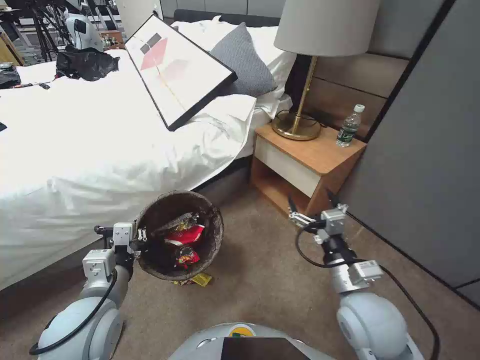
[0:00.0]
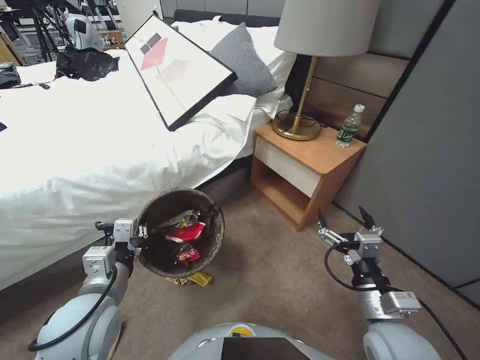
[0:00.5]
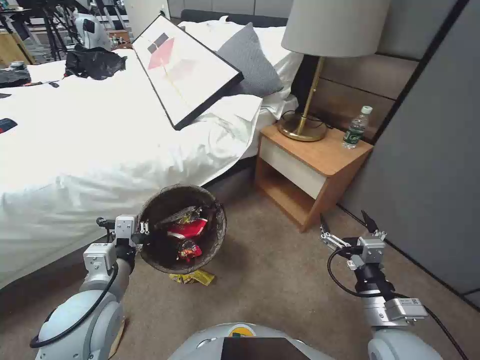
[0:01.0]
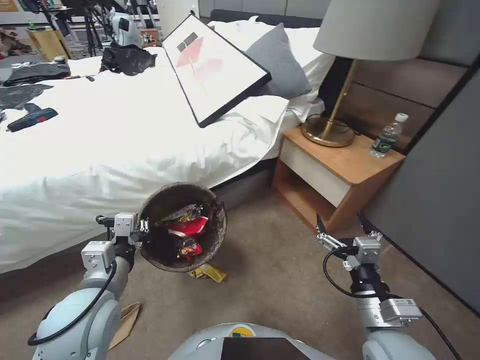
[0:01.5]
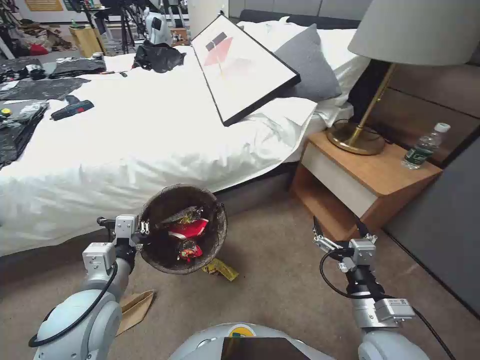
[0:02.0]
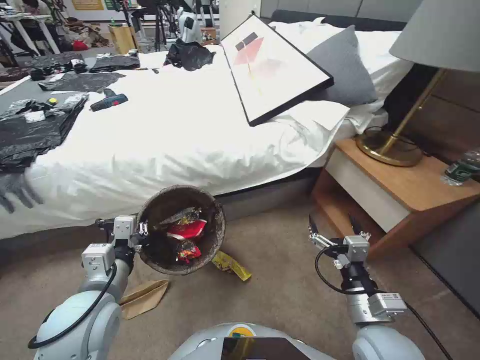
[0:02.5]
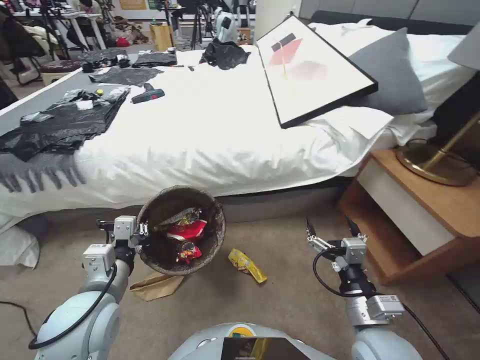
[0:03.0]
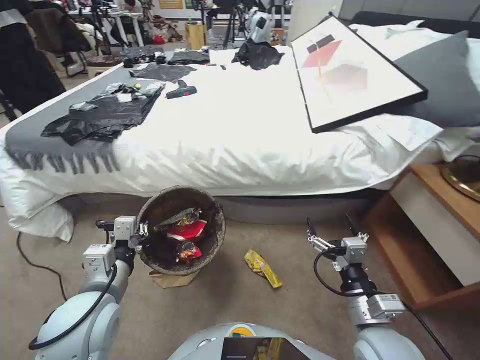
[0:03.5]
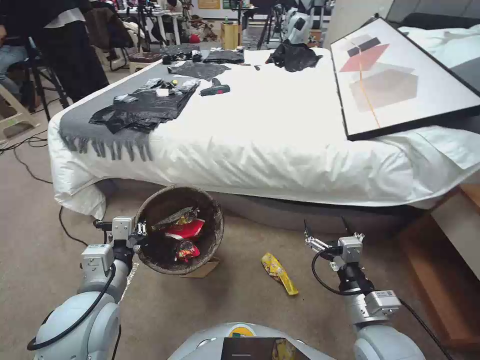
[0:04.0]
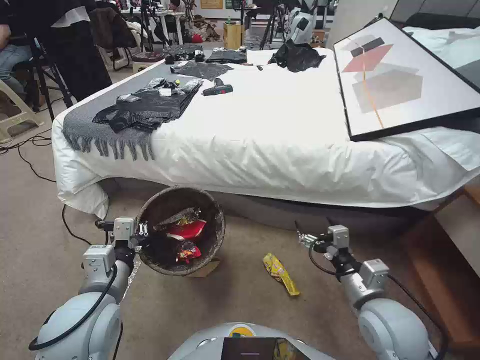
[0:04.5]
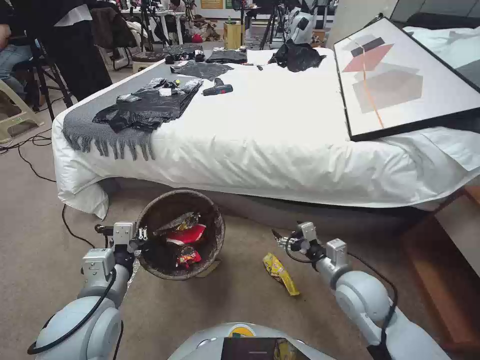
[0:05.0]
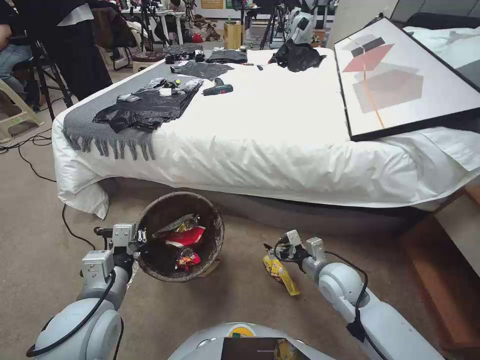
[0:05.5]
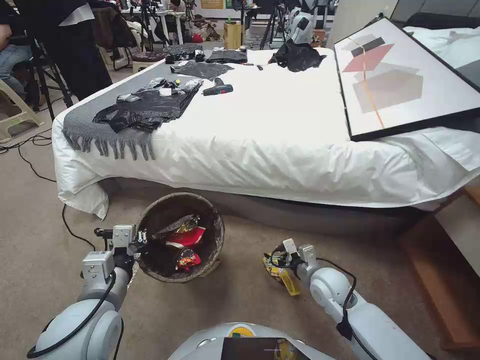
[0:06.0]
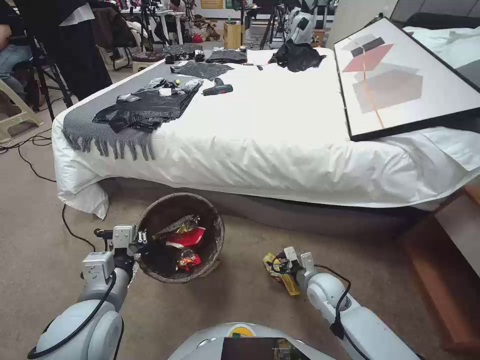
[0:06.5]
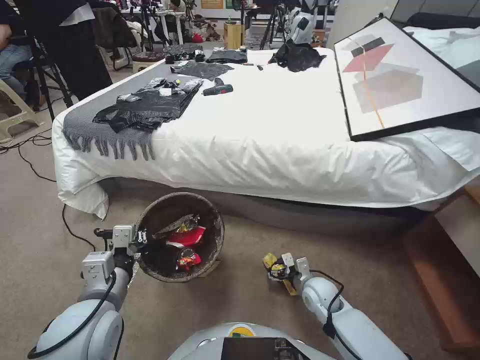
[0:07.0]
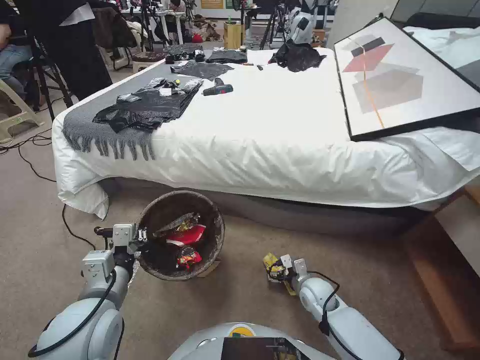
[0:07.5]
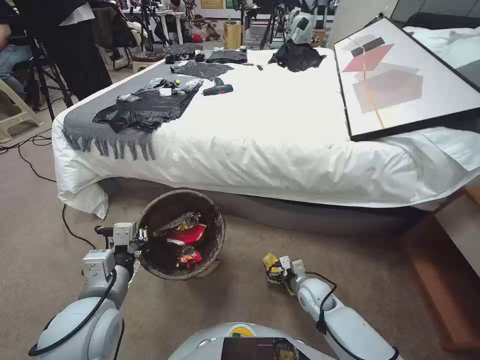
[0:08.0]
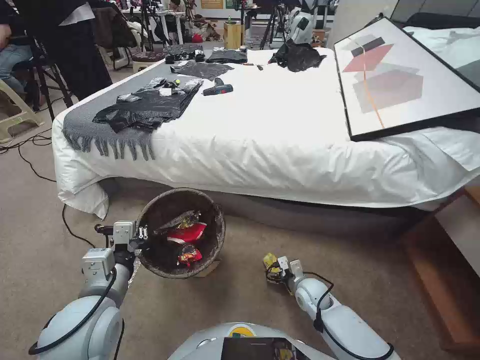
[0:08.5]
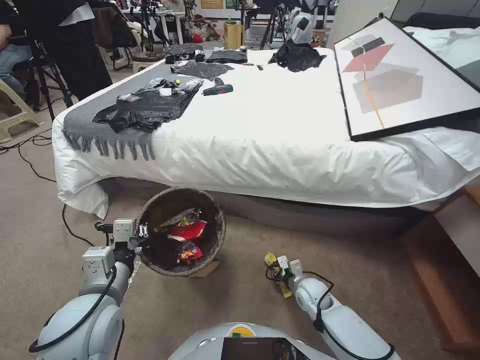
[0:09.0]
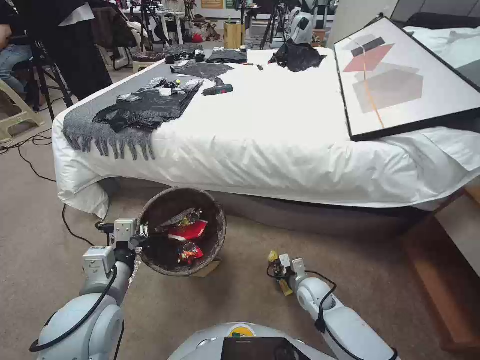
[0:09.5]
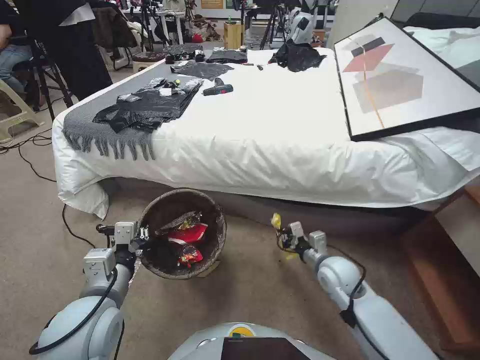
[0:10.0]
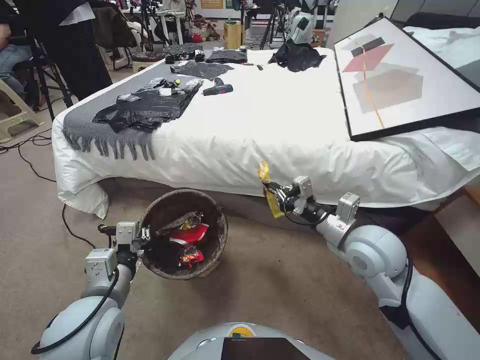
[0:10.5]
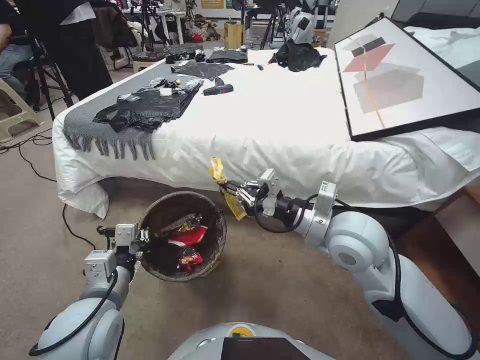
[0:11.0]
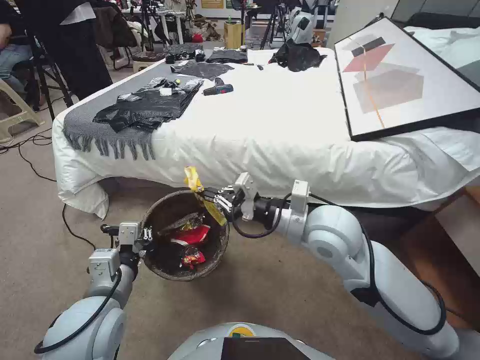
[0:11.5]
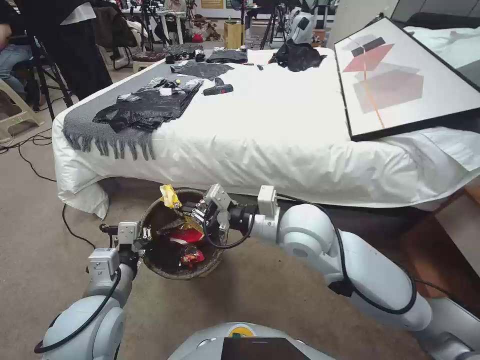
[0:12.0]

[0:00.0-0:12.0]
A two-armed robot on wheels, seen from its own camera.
Task of the whole recording: Pick up the trash bin, then pick up the garbage from the floor and place it into the trash bin.
0:00.0 to 0:02.0: The right gripper goes some 5 cm backward.
0:04.0 to 0:06.0: The right gripper heads forward and downward, covering roughly 15 cm.
0:06.0 to 0:08.0: The right gripper travels downward by roughly 10 cm.
0:08.0 to 0:10.0: The right gripper goes approximately 10 cm upward, and closes its fingers.
0:10.0 to 0:12.0: The right gripper shifts about 30 cm upward and to the left.

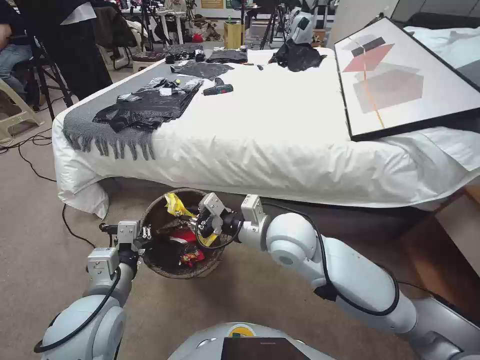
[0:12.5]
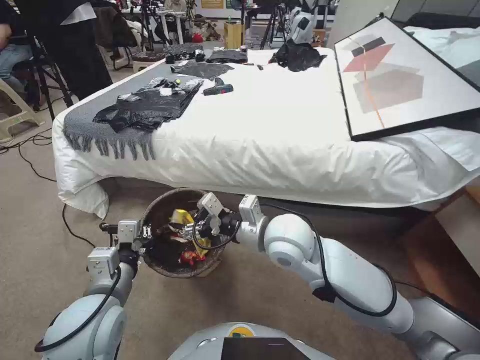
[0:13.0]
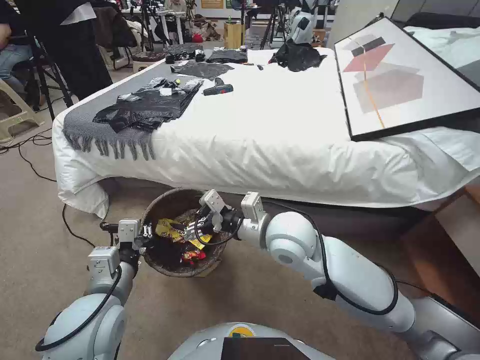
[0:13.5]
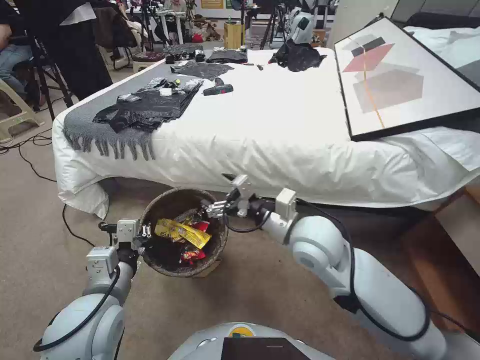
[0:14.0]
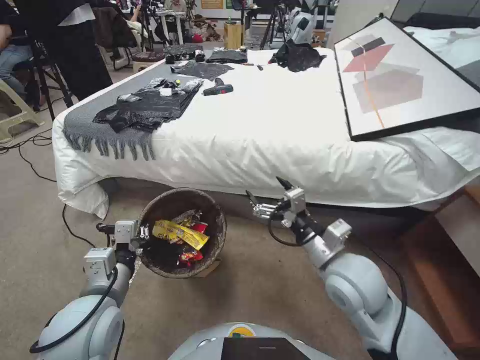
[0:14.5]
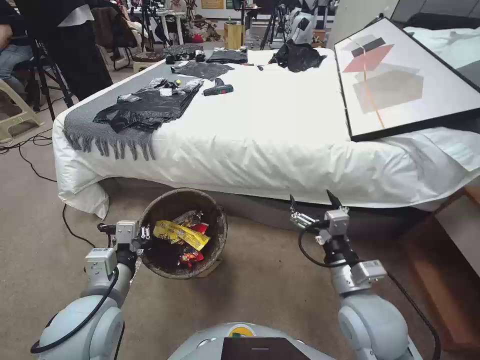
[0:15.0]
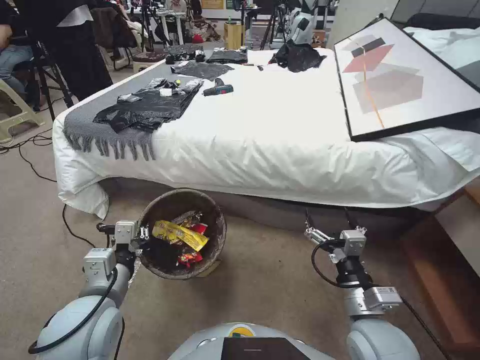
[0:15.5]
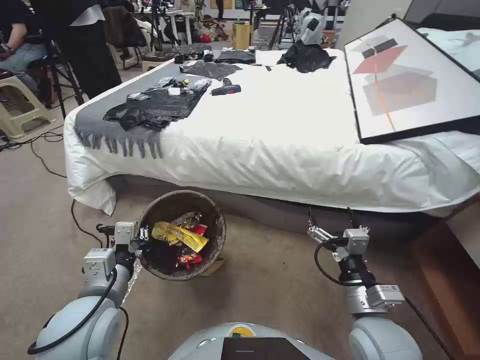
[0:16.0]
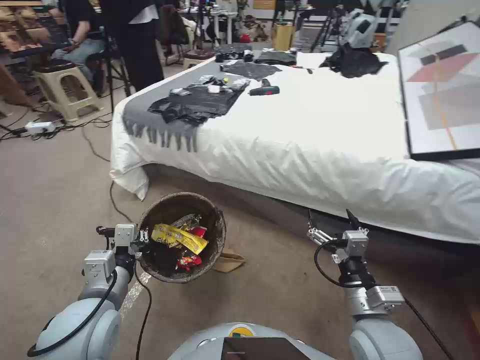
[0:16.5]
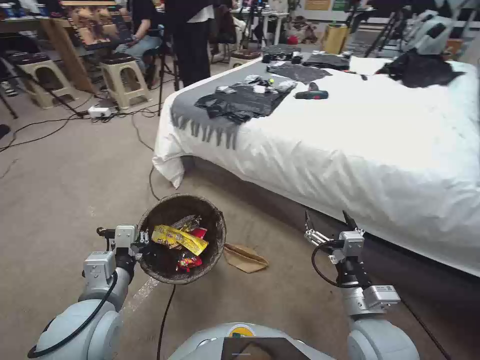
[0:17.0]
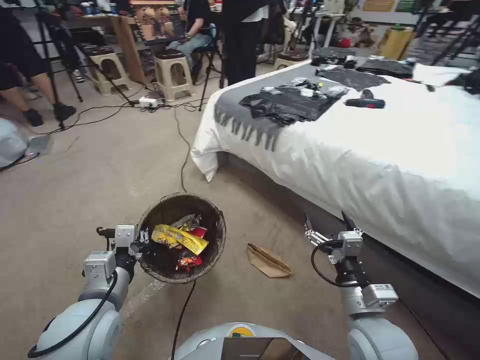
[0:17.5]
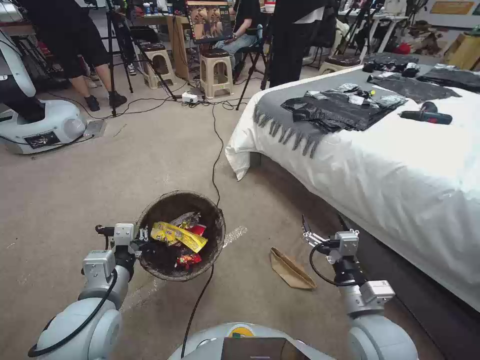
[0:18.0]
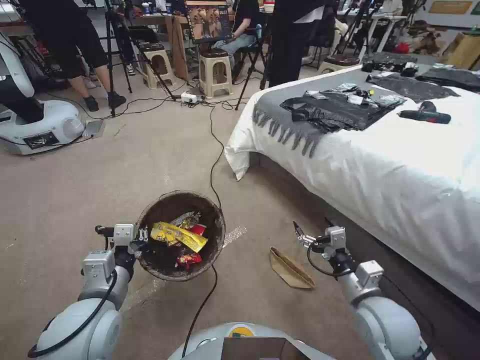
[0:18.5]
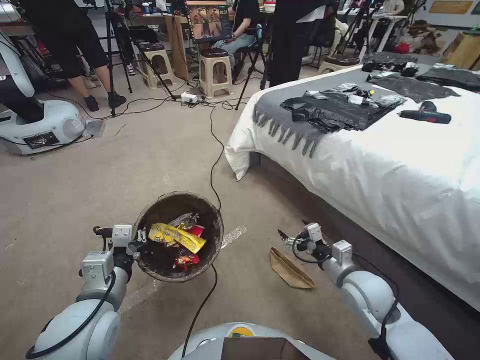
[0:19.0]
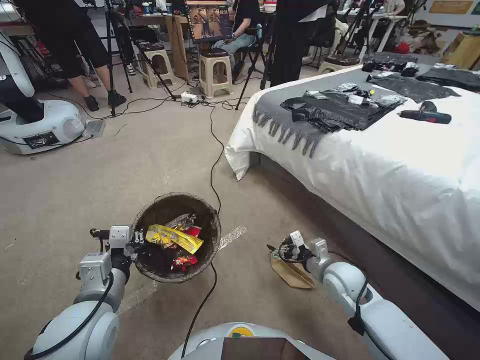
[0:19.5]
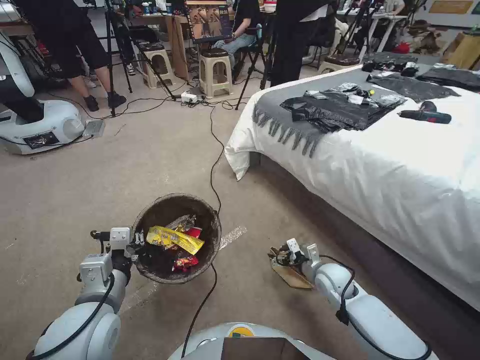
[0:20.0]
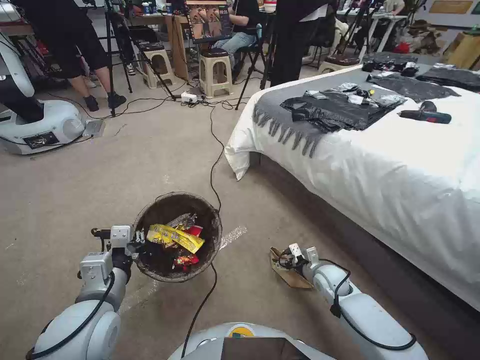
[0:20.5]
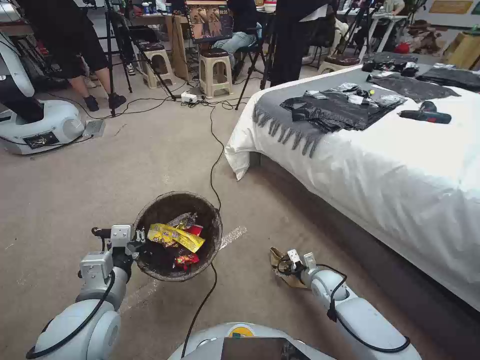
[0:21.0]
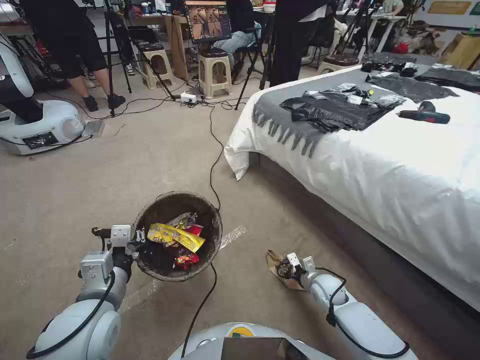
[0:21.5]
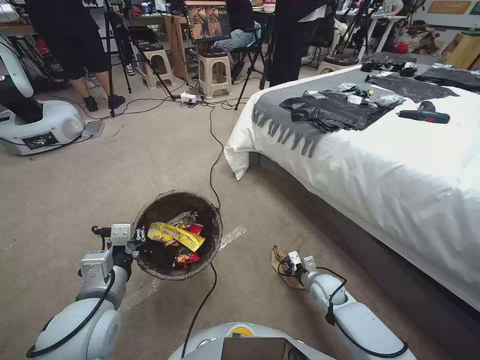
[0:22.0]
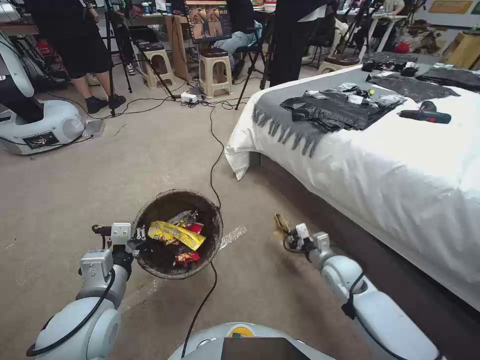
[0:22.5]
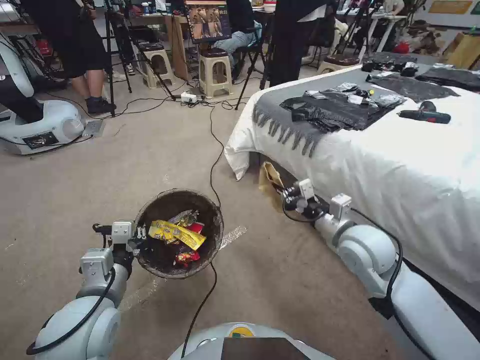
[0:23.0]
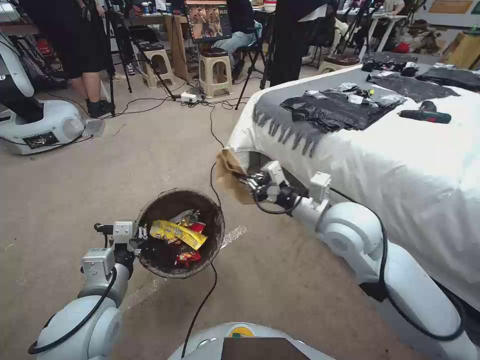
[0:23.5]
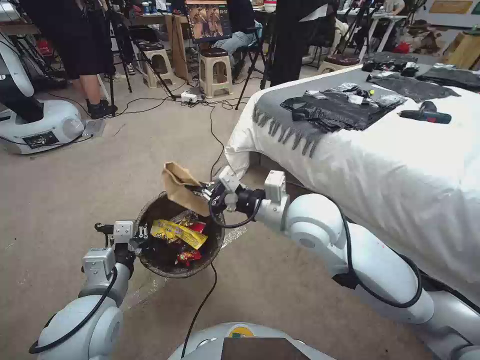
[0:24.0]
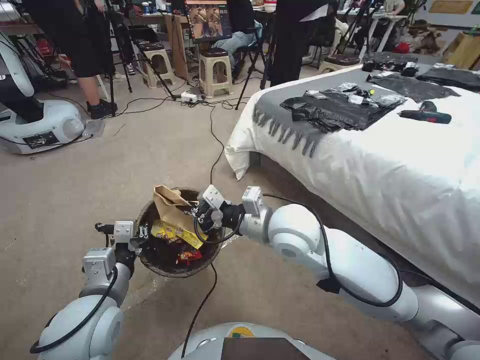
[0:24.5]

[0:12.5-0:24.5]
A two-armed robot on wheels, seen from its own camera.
Task of the whole recording: Pick up the trash bin, then pick up the garbage from the floor and place it into the trash bin.
0:12.5 to 0:14.5: The right gripper heads to the right and backward, covering approximately 10 cm, and opens.
0:14.5 to 0:16.5: The right gripper is displaced backward, downward and to the right by some 15 cm.
0:18.5 to 0:20.5: The right gripper shifts roughly 20 cm downward and forward.
0:20.5 to 0:22.5: The right gripper closes its fingers.
0:22.5 to 0:24.5: The right gripper moves upward and to the left, roughly 35 cm.

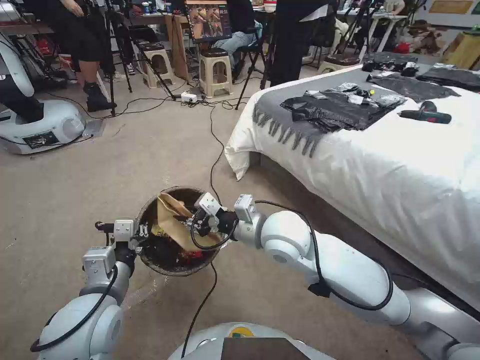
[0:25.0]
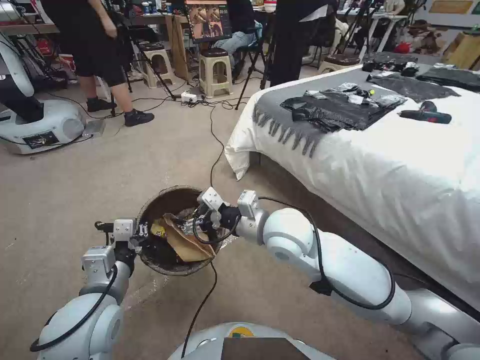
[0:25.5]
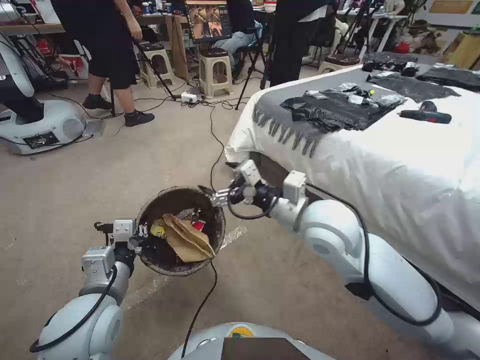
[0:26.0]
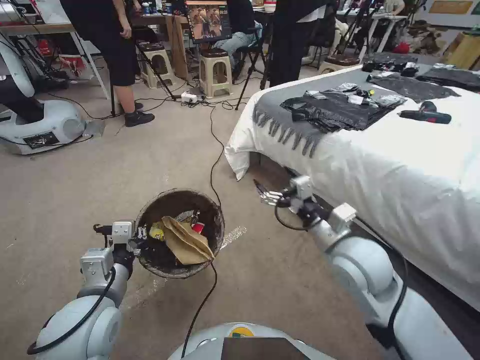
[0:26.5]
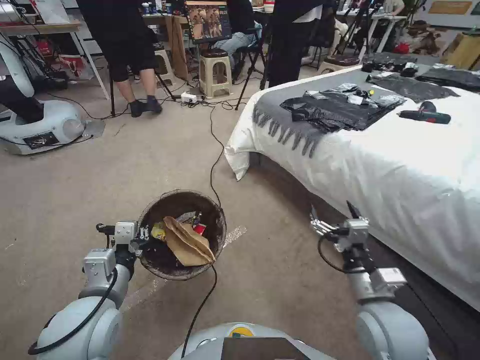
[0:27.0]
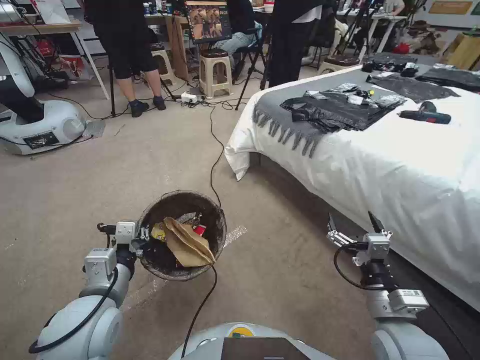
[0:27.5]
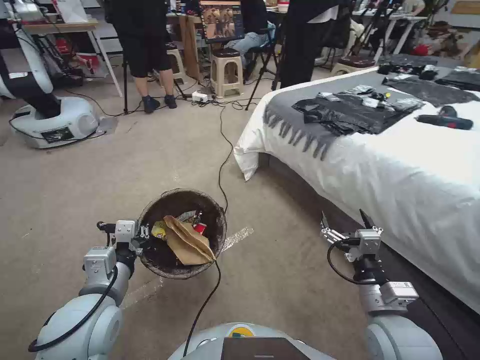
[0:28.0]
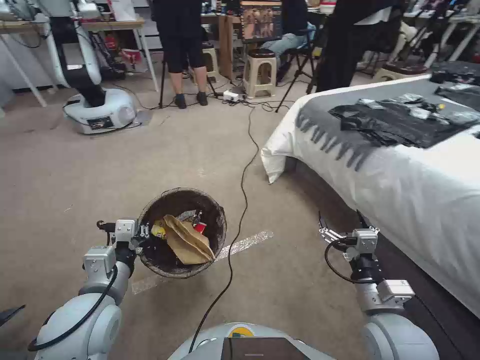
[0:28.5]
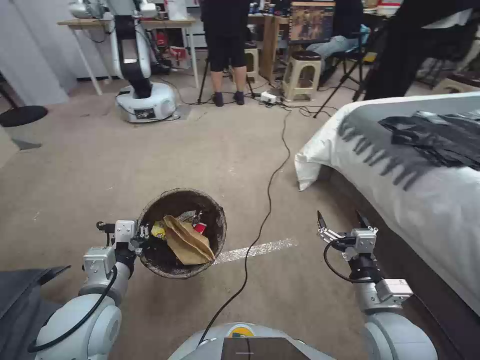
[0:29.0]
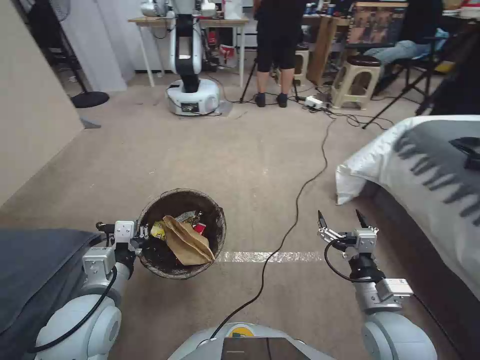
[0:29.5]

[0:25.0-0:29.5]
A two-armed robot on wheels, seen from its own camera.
Task of the whole recording: Pick up the trash bin, then pick up the garbage from the floor and place it into the trash bin.
0:25.0 to 0:27.0: The right gripper travels to the right, backward and downward by about 25 cm, and opens its fingers.
